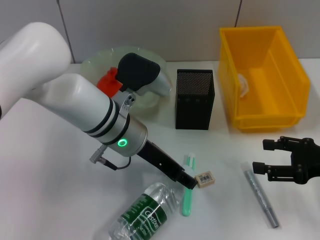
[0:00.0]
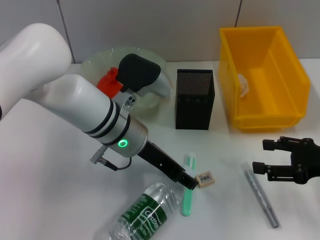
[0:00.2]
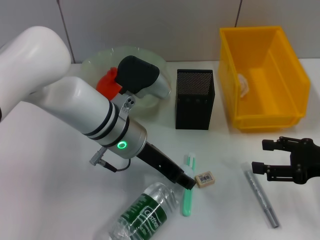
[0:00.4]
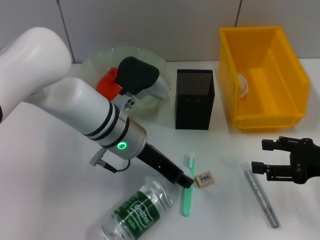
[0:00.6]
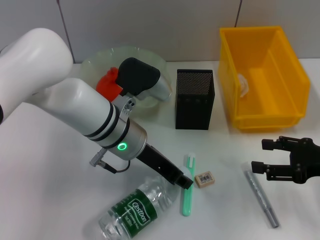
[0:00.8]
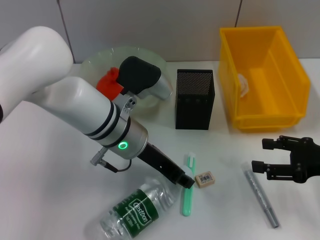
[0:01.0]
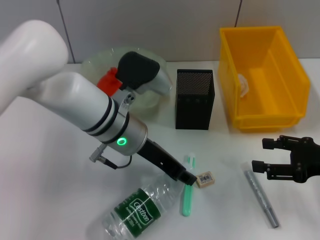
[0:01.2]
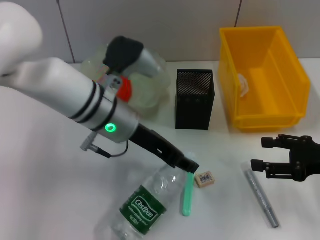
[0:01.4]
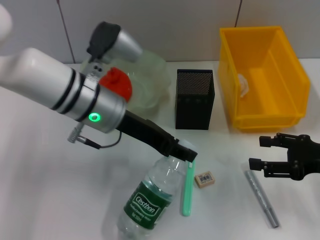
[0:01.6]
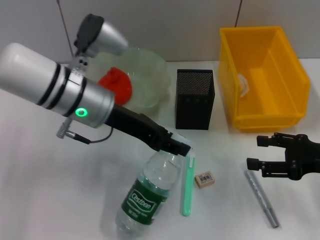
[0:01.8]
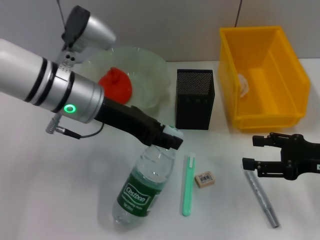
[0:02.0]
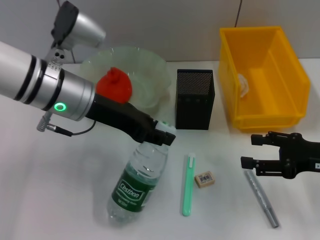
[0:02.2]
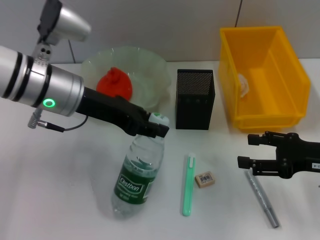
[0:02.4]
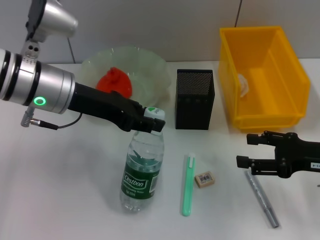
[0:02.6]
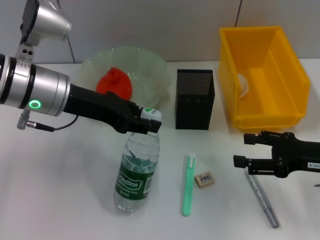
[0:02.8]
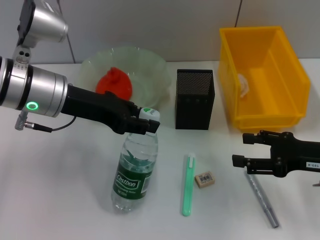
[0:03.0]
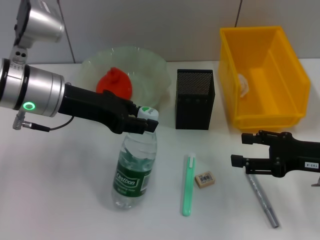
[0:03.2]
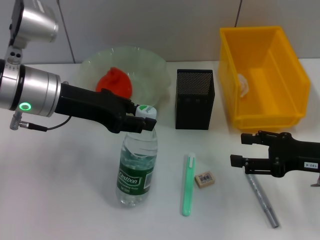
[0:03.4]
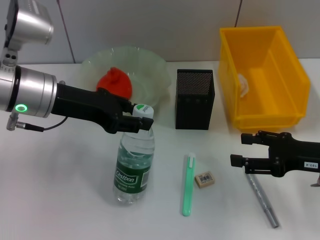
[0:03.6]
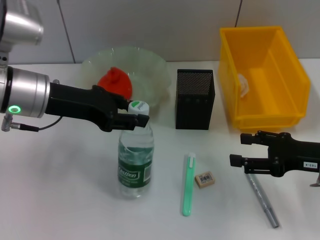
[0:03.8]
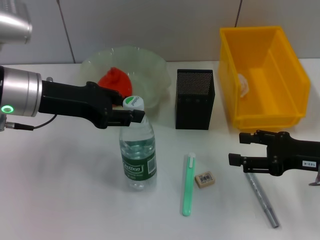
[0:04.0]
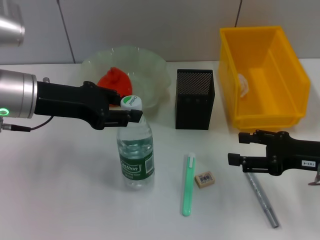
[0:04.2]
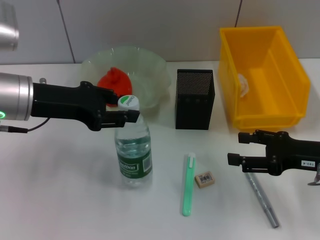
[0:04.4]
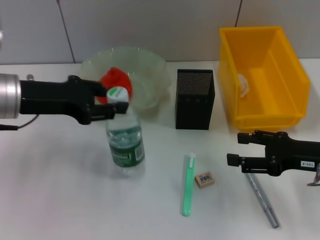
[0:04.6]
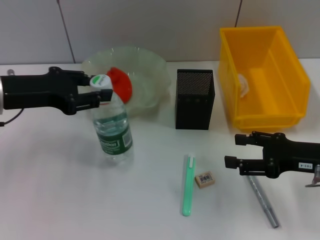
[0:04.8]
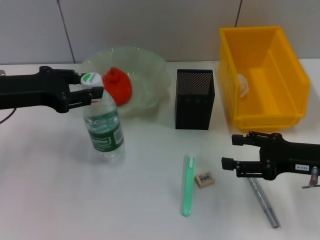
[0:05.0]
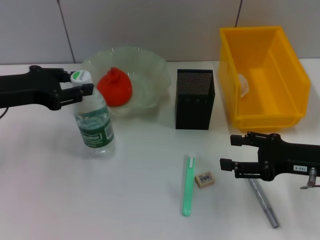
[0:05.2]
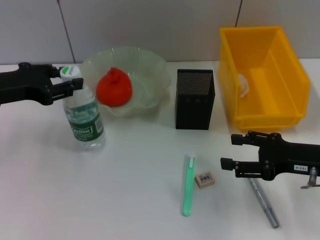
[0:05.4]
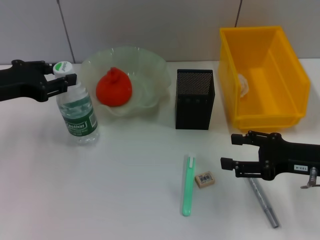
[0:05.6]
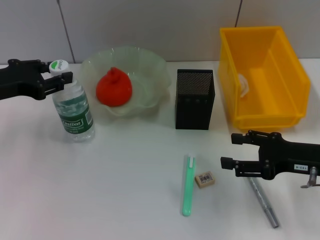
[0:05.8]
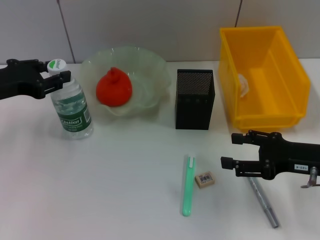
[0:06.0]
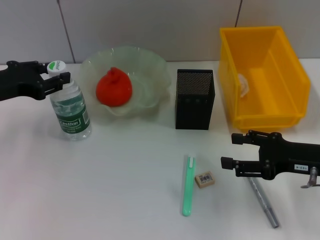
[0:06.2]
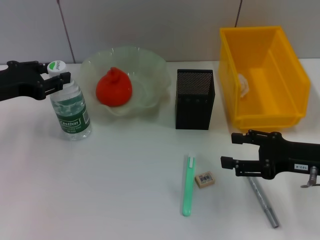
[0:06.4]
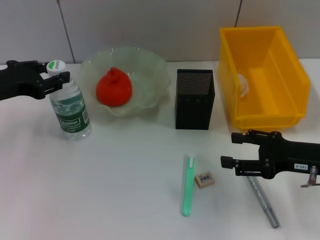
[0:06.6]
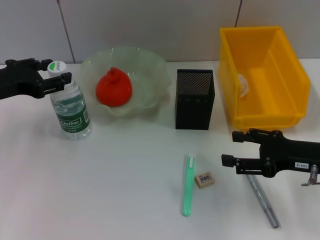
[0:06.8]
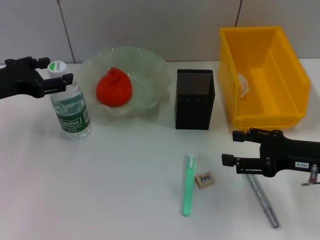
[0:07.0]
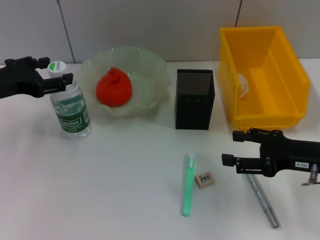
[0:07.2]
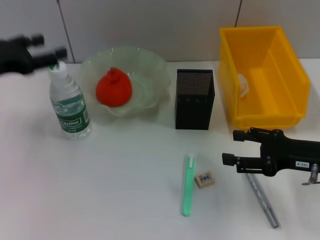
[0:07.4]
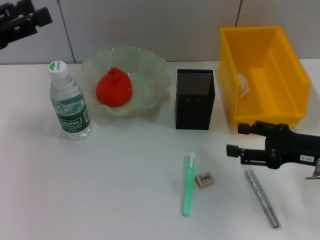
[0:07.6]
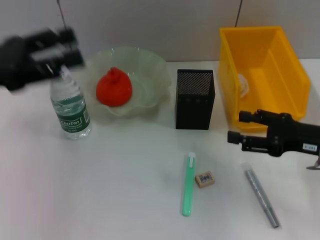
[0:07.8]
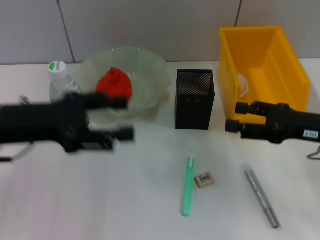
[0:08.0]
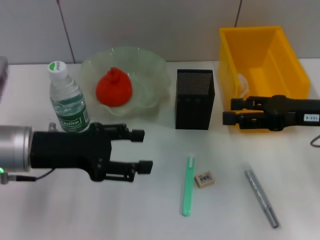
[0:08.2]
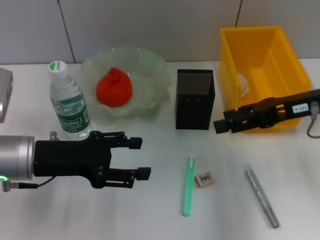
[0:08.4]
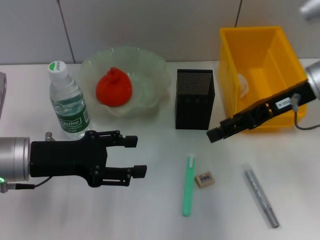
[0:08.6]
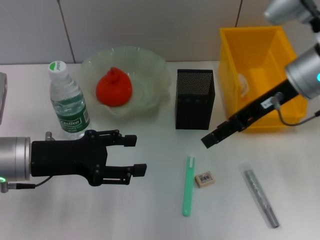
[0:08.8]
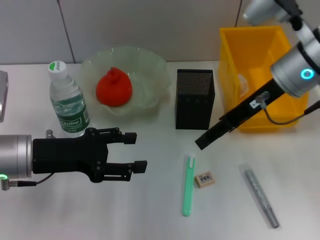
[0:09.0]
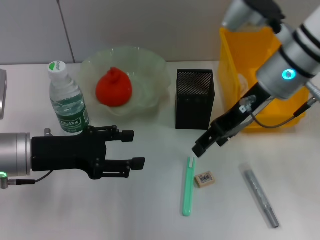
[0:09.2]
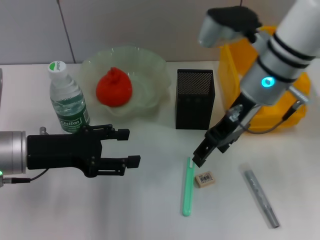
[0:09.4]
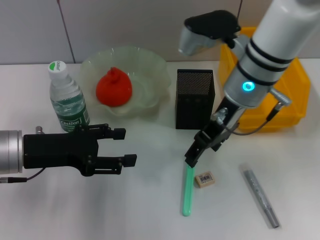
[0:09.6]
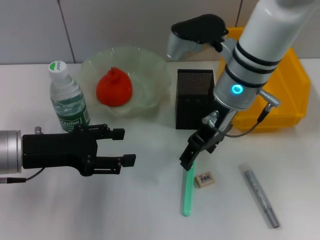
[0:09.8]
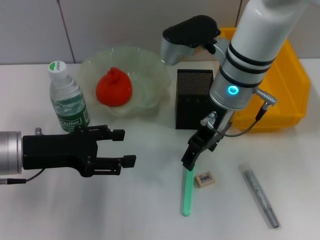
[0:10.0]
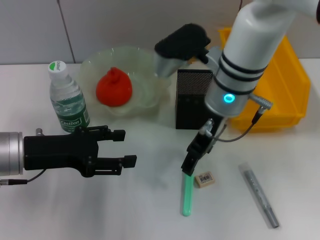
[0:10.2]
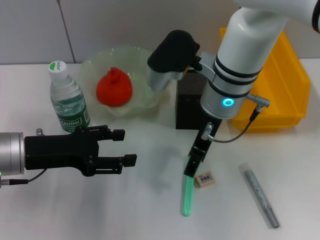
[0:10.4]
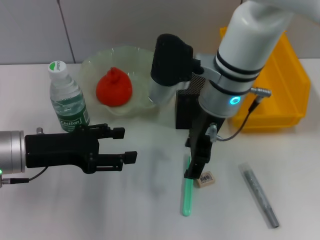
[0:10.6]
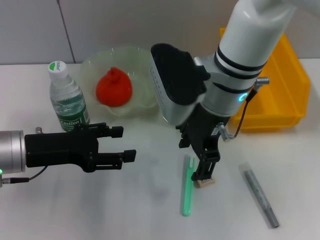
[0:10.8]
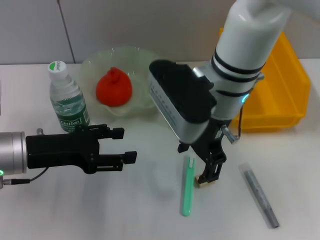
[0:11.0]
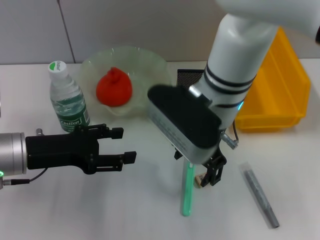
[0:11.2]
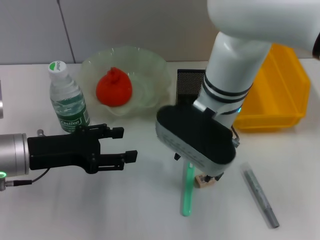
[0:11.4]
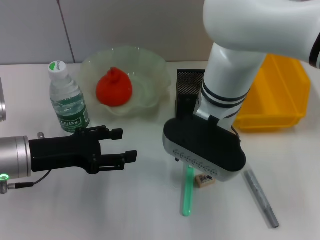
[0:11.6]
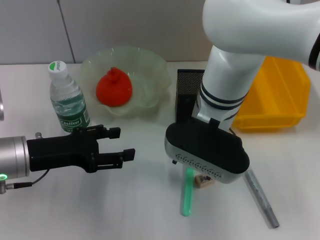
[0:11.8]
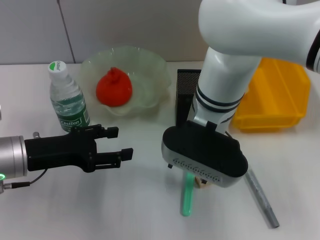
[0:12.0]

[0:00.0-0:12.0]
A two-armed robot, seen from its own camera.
Step, 0:01.0 to 0:07.0: Place the water bottle on the table with the left hand.
0:00.0 to 0:01.6: The left gripper changes place by about 5 cm, and closes.
0:01.6 to 0:03.0: The left gripper shifts approximately 5 cm to the left.
0:03.0 to 0:04.4: There are only small adjustments of the grippers.
0:04.4 to 0:06.0: The left gripper goes about 5 cm to the left.
0:06.0 to 0:07.6: The left gripper is displaced upward by approximately 5 cm, and opens up.
0:07.6 to 0:09.0: The left gripper heads downward and to the right, covering about 15 cm. The right gripper shifts roughly 20 cm upward, to the left and forward.
0:09.0 to 0:10.4: The right gripper moves to the left, some 10 cm.

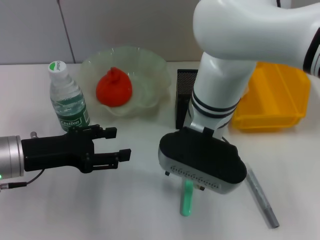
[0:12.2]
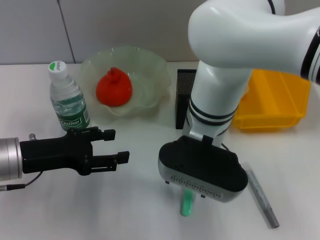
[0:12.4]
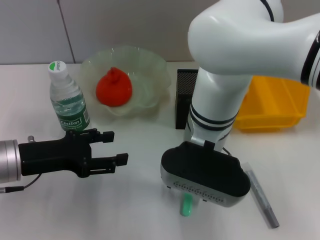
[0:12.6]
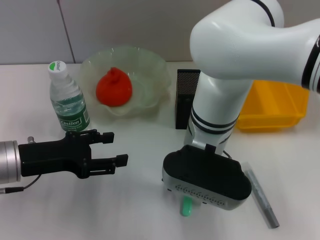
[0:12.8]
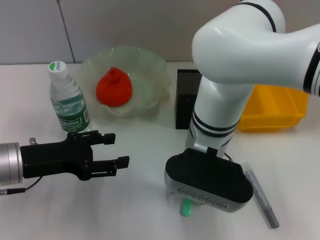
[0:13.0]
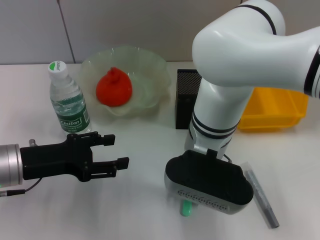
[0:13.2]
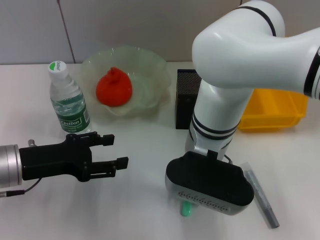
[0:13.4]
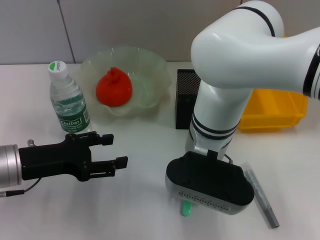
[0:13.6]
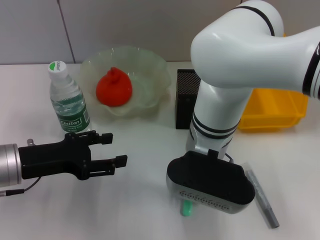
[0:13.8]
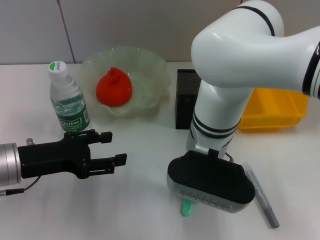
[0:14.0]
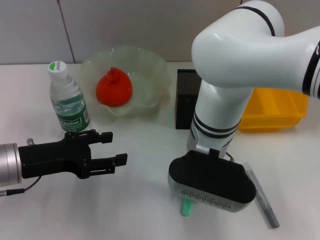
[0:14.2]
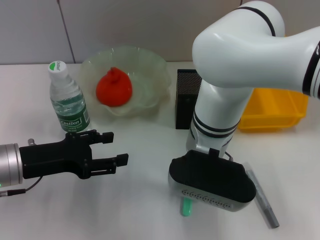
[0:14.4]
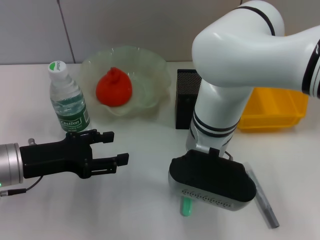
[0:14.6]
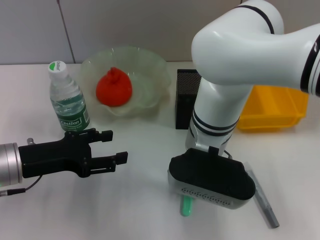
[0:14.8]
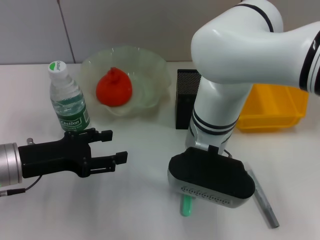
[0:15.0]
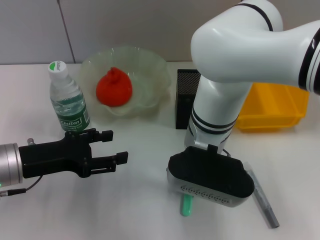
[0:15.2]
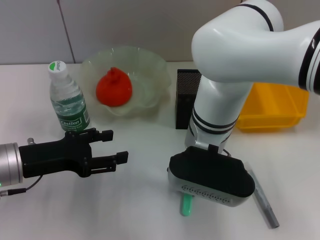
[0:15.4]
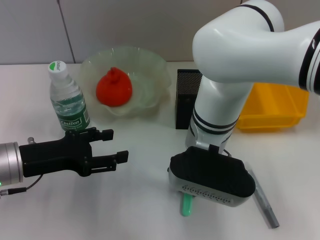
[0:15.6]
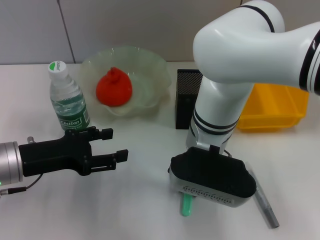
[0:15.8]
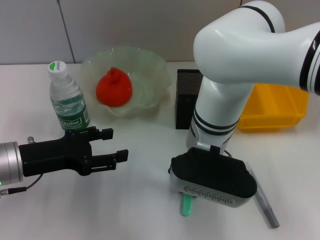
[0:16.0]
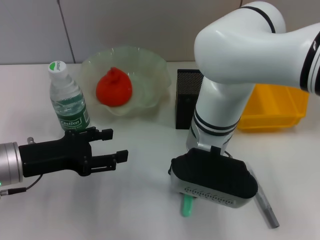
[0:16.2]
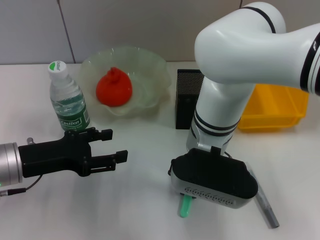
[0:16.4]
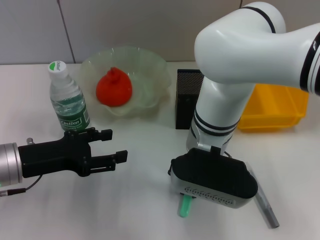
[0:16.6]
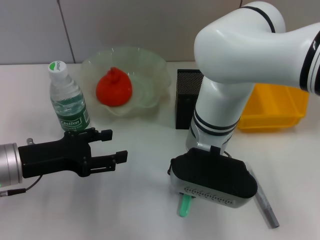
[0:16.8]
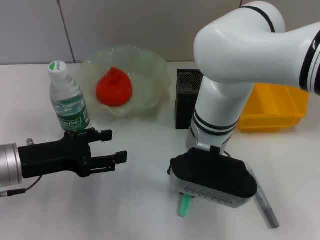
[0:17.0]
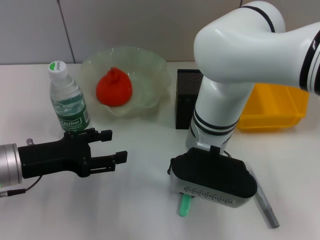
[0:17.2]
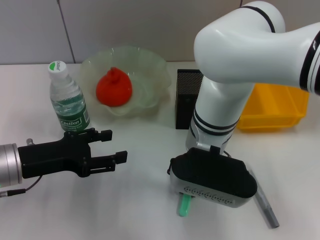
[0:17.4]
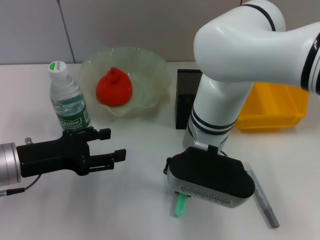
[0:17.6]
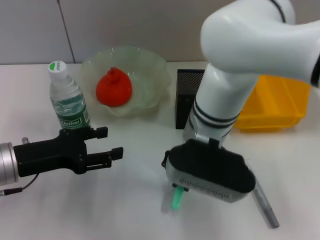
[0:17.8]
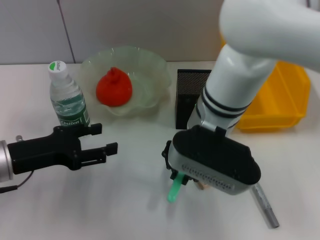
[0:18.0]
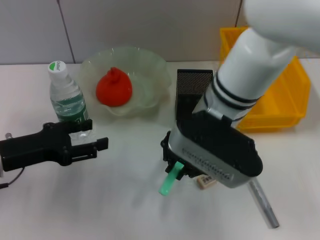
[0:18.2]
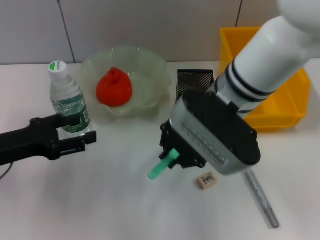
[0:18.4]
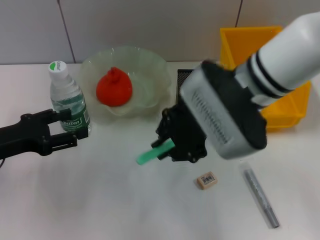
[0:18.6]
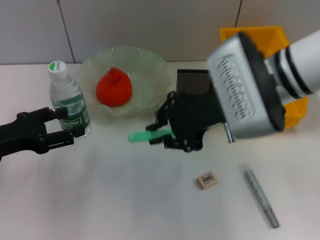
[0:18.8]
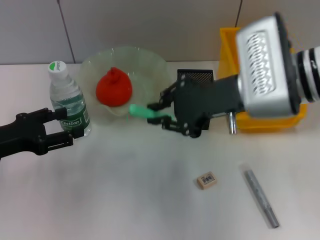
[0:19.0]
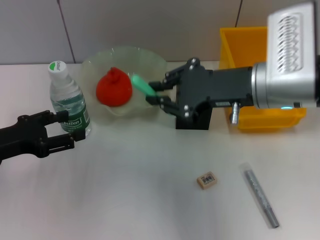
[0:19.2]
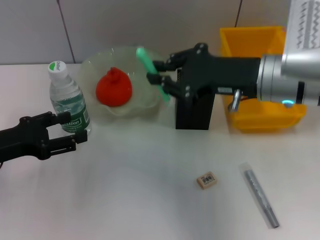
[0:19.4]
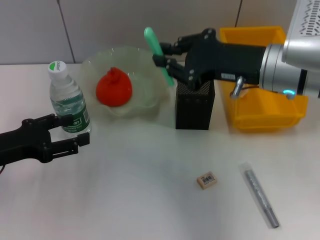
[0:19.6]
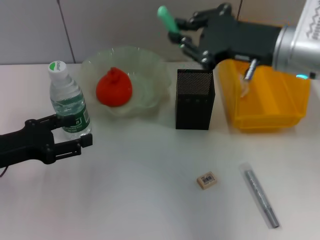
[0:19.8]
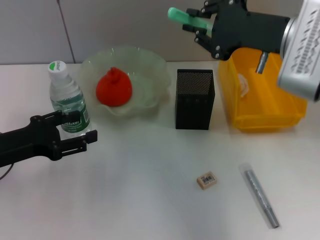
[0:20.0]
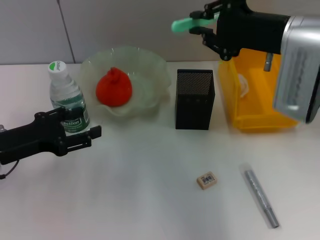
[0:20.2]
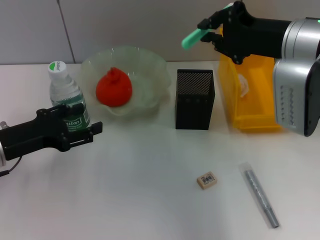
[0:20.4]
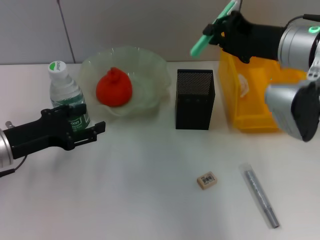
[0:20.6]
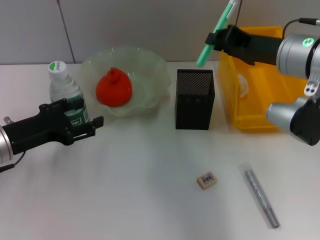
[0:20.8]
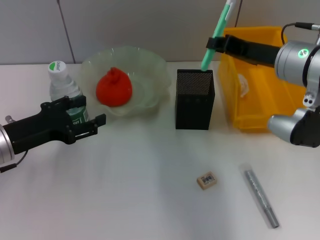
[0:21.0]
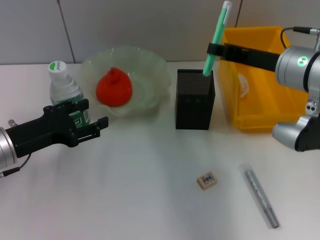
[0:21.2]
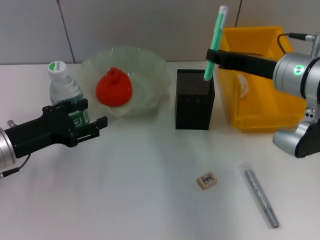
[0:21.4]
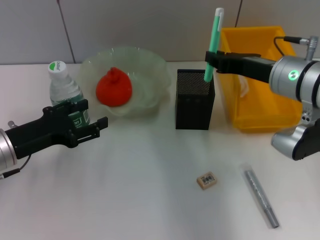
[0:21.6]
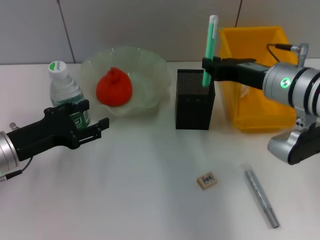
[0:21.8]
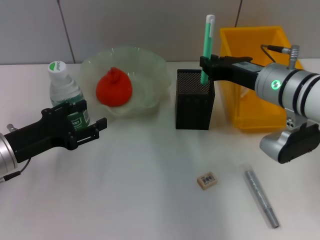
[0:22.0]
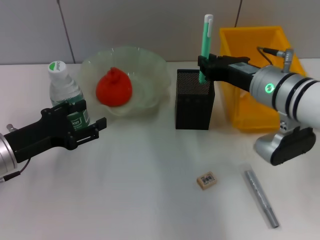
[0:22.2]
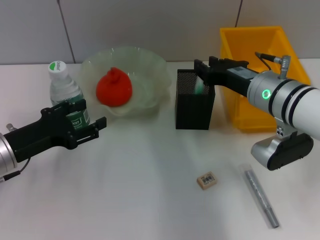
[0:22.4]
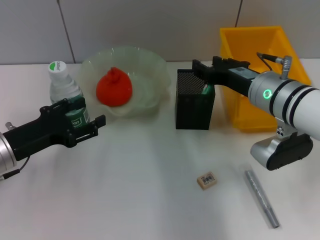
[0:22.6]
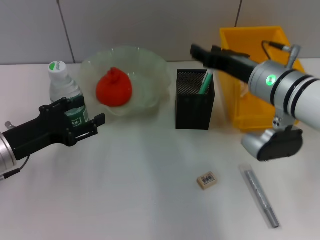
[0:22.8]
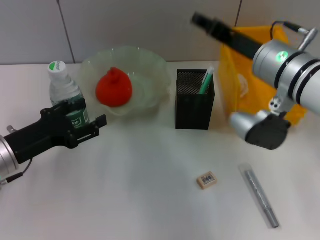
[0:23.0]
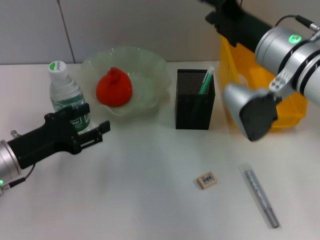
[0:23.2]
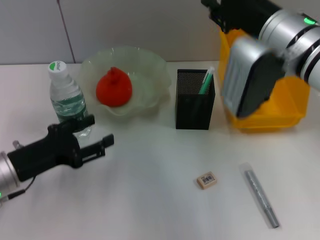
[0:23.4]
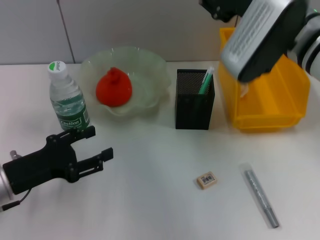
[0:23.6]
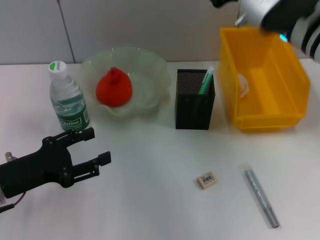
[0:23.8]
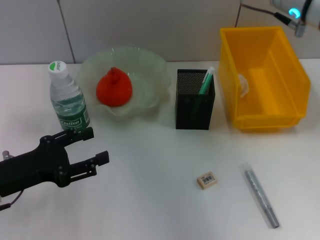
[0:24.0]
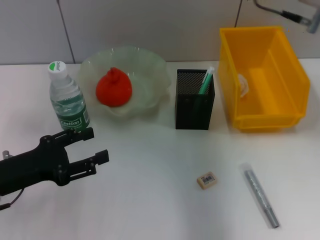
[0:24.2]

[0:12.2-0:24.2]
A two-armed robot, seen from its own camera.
Step, 0:12.2 to 0:17.2: Grab the blue utility knife with the right hand.
Step, 0:17.4 to 0:22.6: Place the blue utility knife into the pen holder with the right hand.
0:12.2 to 0:13.8: The right gripper closes its fingers.
0:13.8 to 0:16.6: Both grippers stay about where they are.
0:16.6 to 0:18.2: The right gripper moves about 5 cm.
0:18.2 to 0:19.8: The right gripper moves to the right, approximately 10 cm.
0:21.2 to 0:22.6: The right gripper shifts by some 5 cm.
0:22.6 to 0:24.2: The right gripper moves upward, some 15 cm.
